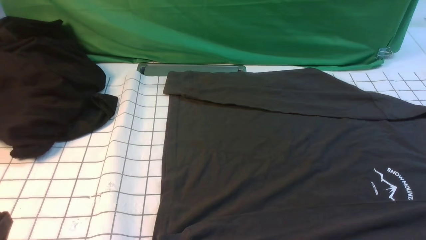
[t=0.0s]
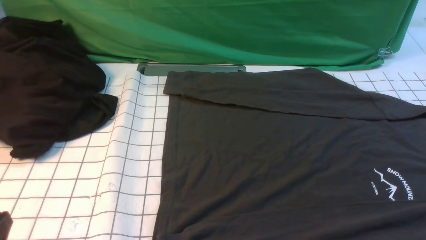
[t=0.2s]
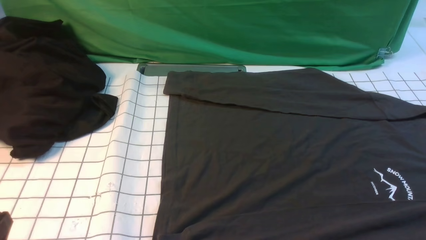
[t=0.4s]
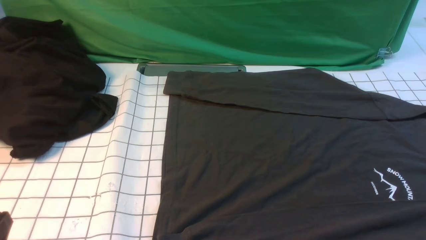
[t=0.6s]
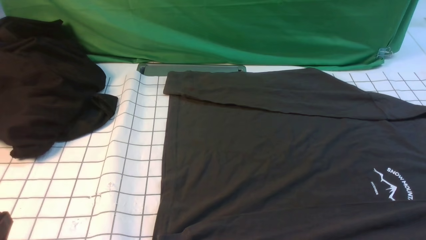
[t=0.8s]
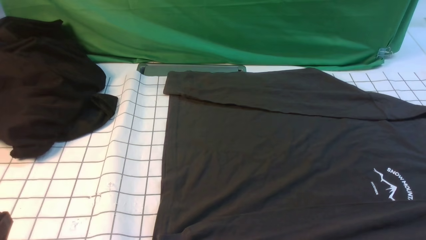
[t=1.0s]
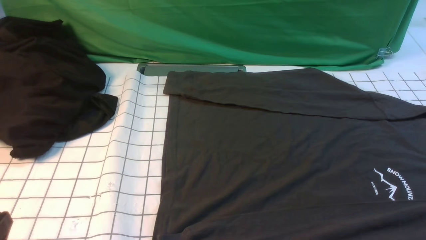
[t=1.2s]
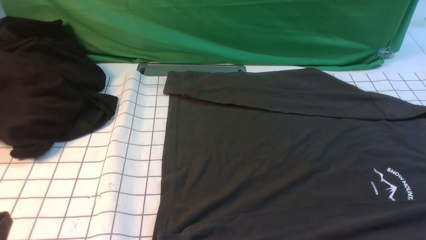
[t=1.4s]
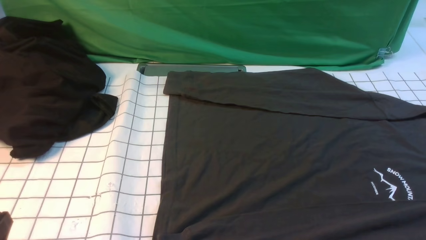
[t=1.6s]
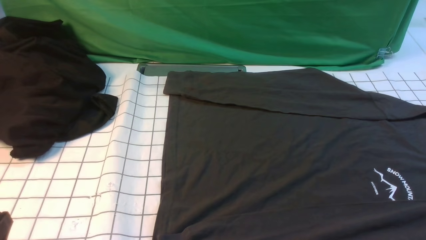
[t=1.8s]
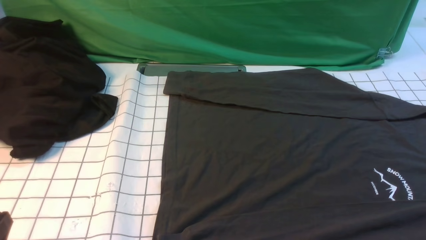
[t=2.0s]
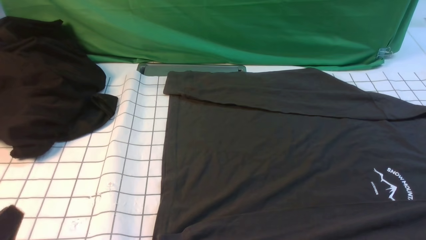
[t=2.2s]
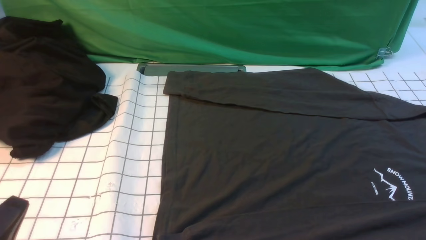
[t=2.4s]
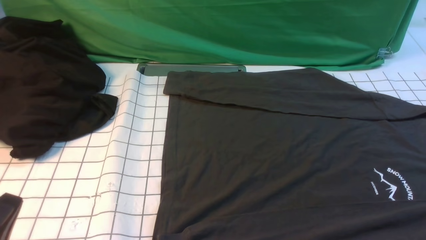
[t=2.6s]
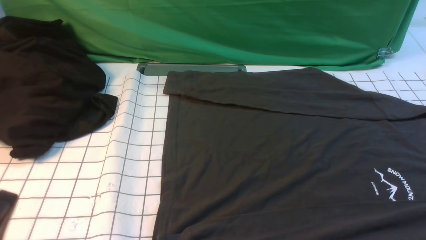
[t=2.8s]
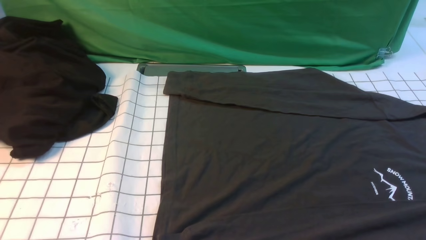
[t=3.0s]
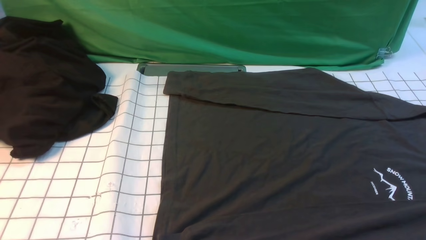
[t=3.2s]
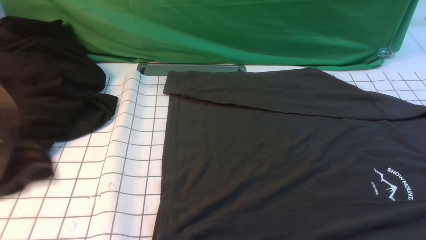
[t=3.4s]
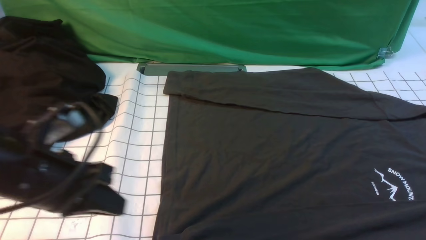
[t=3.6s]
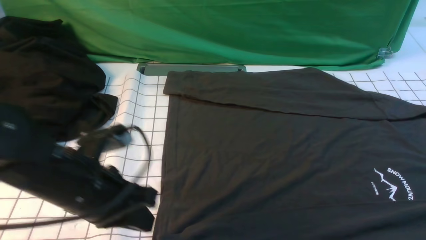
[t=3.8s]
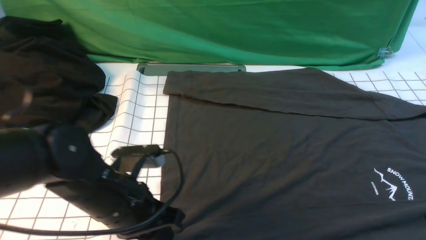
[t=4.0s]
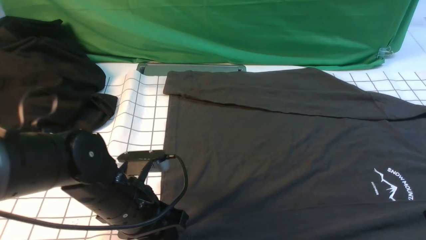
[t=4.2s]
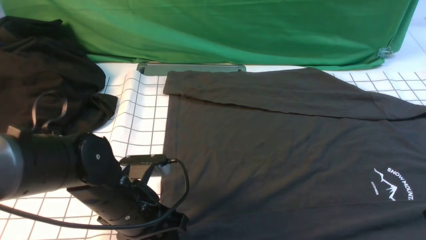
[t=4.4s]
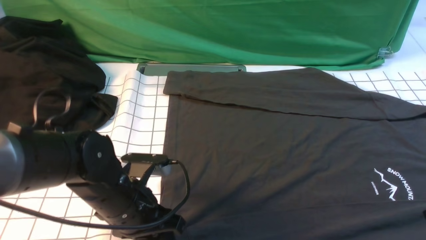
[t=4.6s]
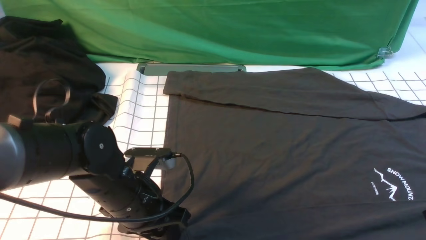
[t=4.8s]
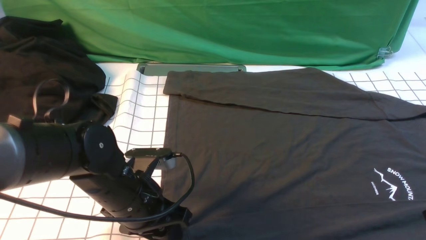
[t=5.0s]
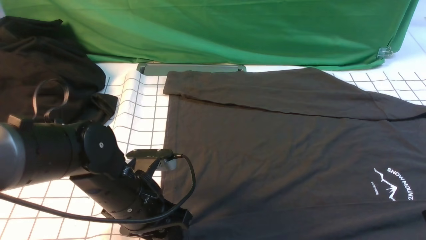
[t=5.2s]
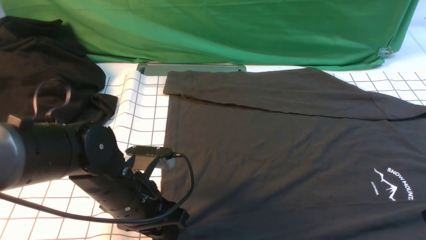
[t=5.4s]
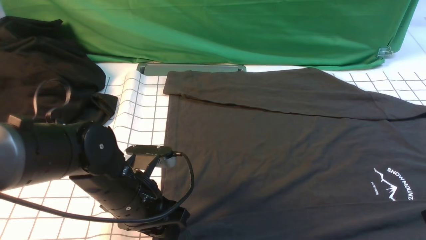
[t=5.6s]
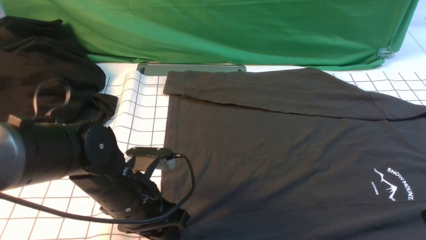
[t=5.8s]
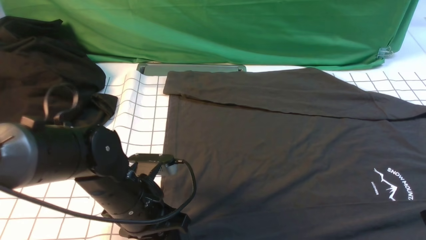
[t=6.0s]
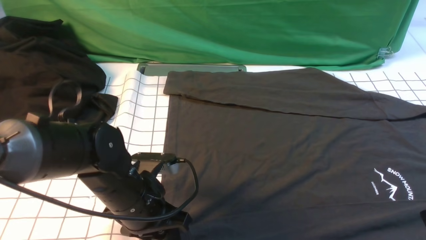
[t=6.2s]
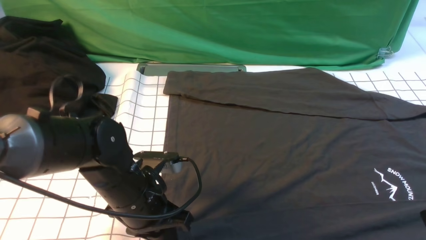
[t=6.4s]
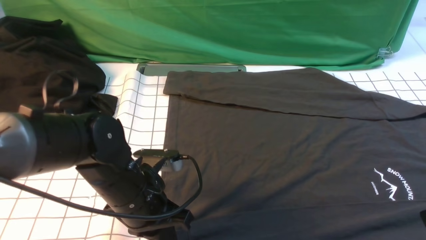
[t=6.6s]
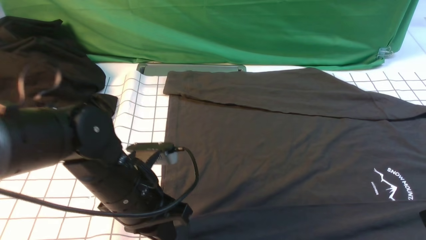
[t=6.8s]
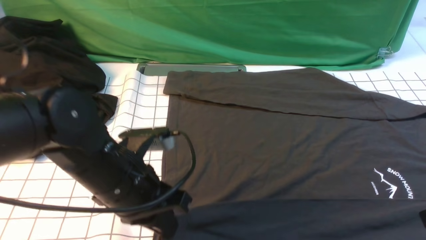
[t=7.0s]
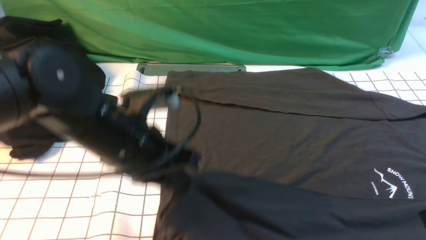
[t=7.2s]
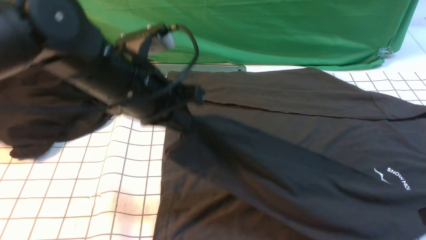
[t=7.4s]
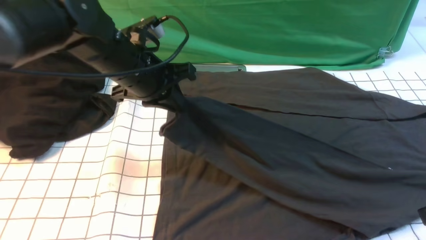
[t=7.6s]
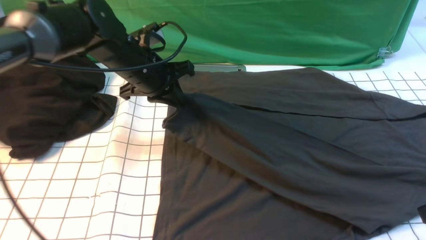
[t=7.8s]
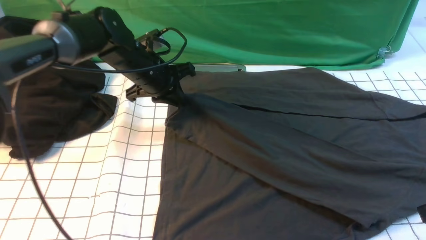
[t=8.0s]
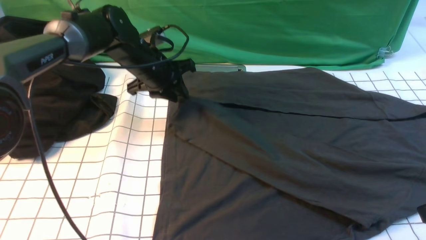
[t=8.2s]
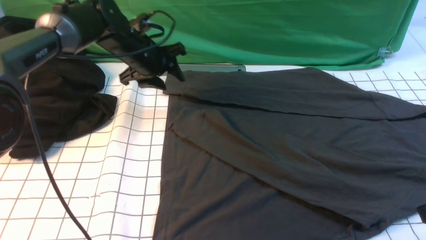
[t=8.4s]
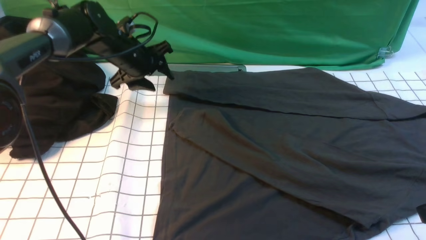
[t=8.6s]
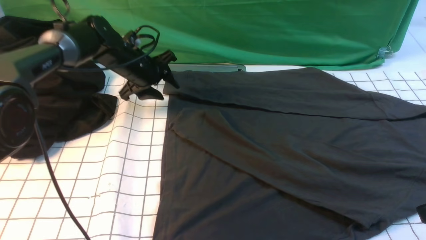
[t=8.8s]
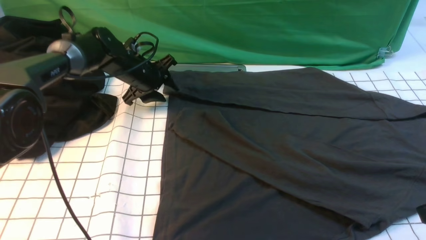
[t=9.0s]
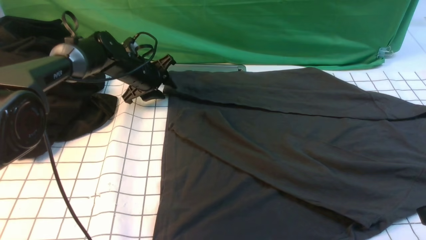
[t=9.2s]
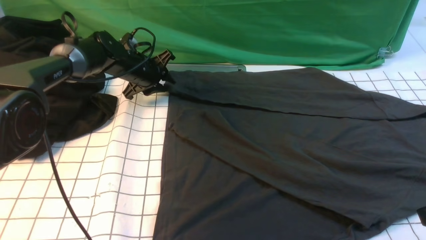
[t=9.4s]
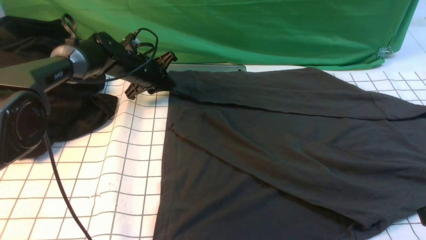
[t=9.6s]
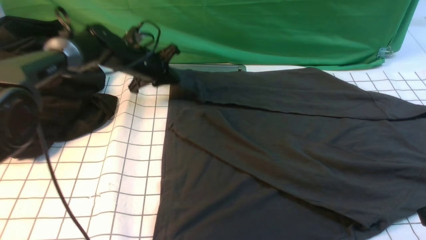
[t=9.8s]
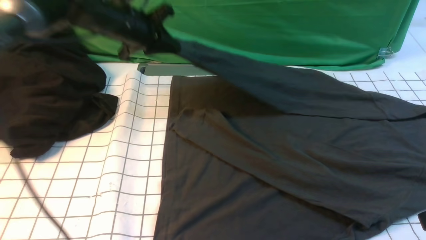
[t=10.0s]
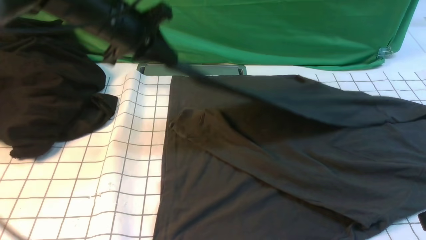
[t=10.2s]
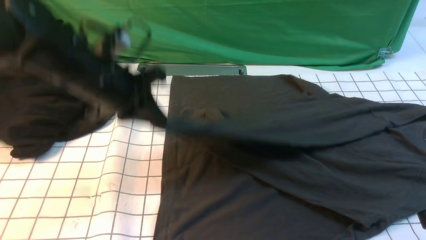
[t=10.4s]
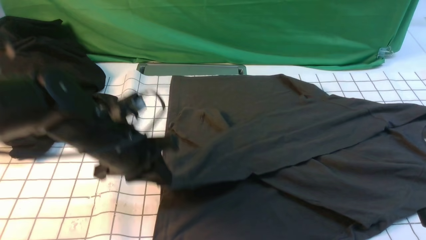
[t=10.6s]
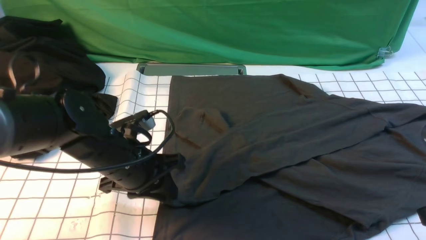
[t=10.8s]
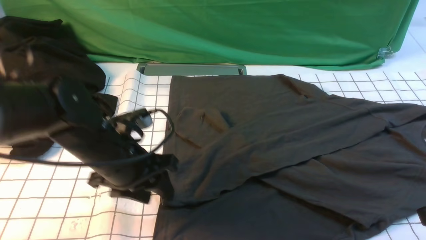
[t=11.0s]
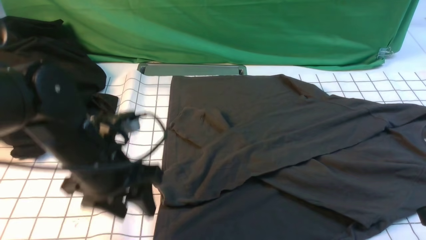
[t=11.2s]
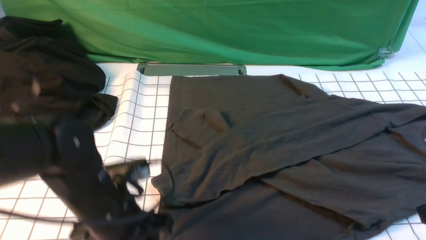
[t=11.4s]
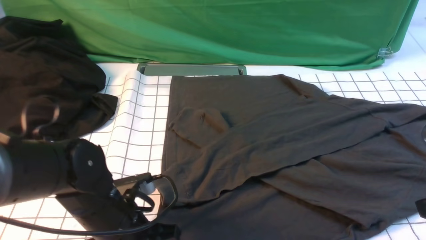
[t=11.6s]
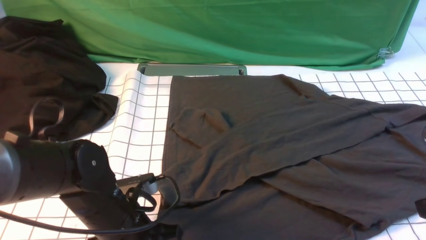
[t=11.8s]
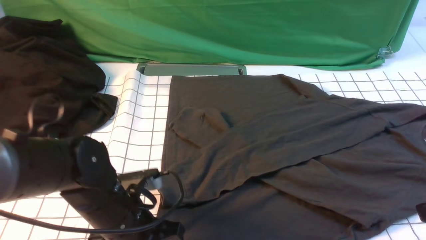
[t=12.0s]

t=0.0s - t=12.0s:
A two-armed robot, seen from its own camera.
Step, t=0.0s - t=6.4s: use the left arm to clamp the cuff closest to it.
Step, t=6.8s - t=8.2s: use the left arm to drag and place the cuff at the centered position on the left edge of the fabric.
Step, t=8.4s - t=9.6s: use the left arm to clamp the cuff farthest from it.
Step, t=9.8s - t=10.8s: use the left arm to drag and drop the cuff onto the cuff closest to the left arm.
t=0.0s - t=1.6s: The two grippers keep their place.
t=3.0s - t=4.4s: The left gripper moves forward, to the right and downward, some 25 cm, and opens its fingers, while the right gripper moves forward, roughly 10 cm.
t=4.4s - t=6.0s: Both grippers stay about where they are.
t=6.0s - t=7.6s: The left gripper moves forward and upward, about 20 cm, and closes up.
t=7.6s - t=9.0s: The left gripper moves forward and downward, roughly 20 cm, and opens up.
t=9.0s - t=10.4s: The left gripper moves backward and upward, approximately 20 cm, and closes its fingers.
t=10.4s - t=12.0s: The left gripper is displaced backward and downward by roughly 15 cm, and opens and closes again.

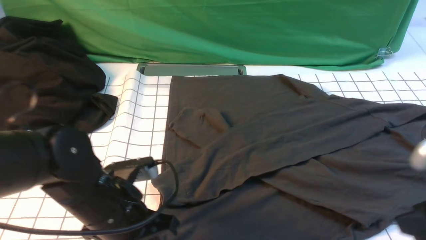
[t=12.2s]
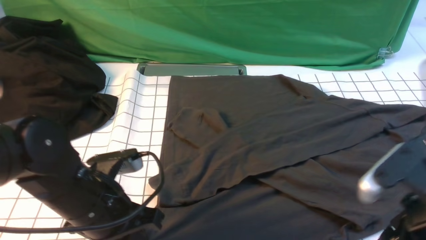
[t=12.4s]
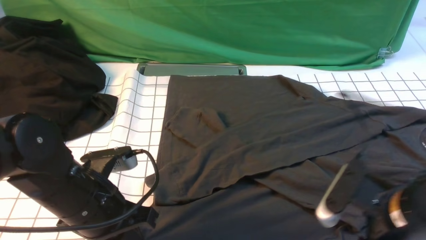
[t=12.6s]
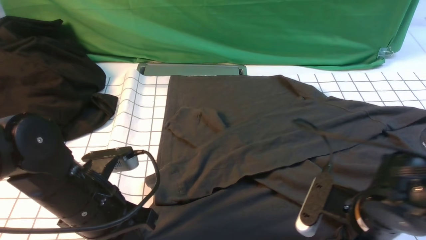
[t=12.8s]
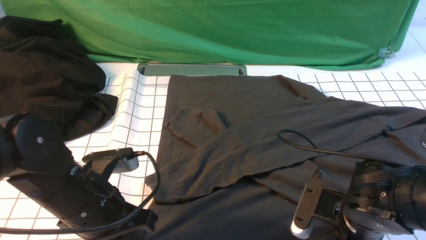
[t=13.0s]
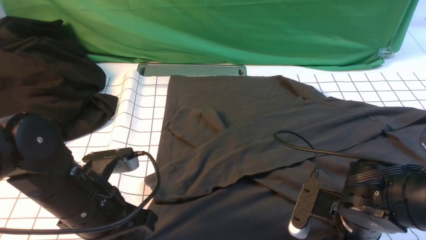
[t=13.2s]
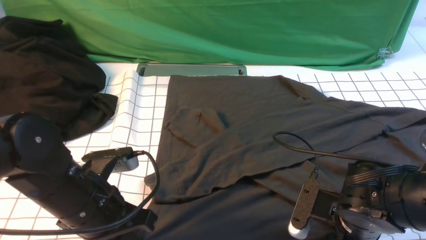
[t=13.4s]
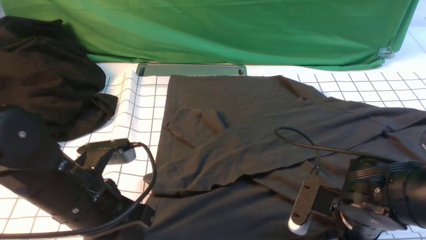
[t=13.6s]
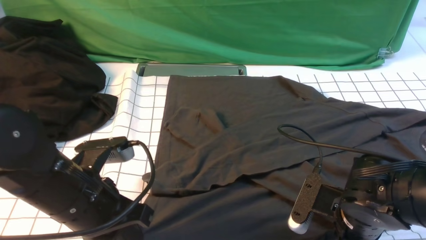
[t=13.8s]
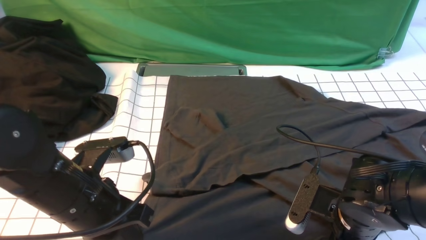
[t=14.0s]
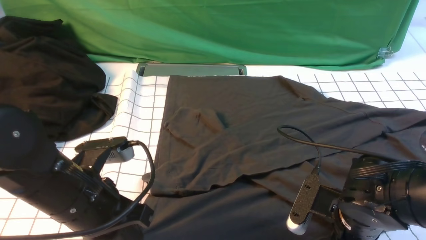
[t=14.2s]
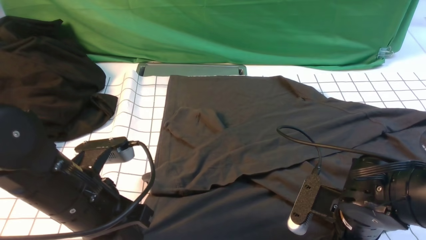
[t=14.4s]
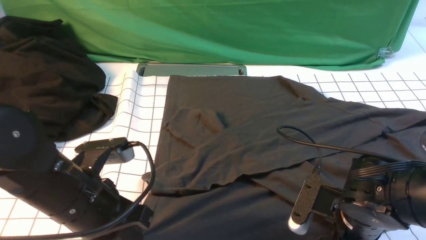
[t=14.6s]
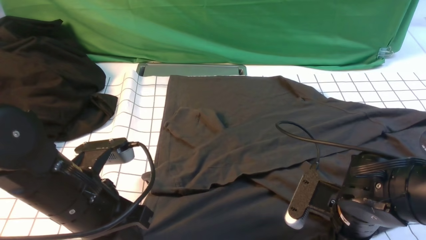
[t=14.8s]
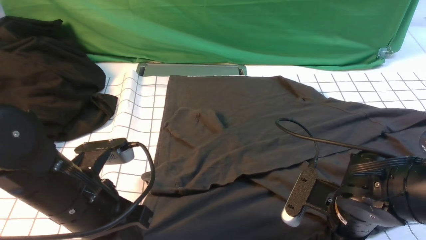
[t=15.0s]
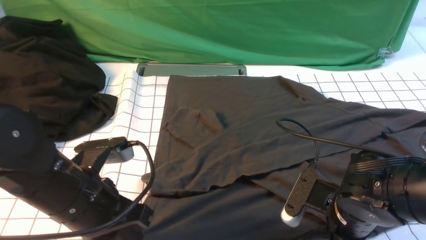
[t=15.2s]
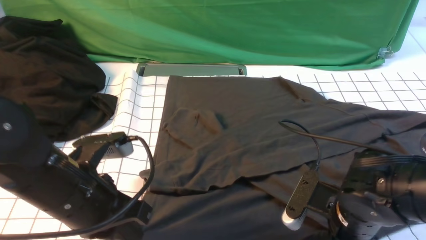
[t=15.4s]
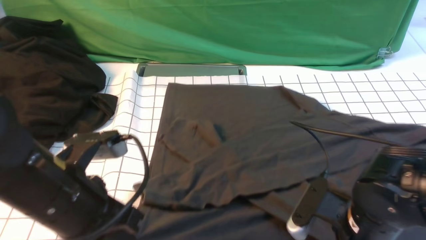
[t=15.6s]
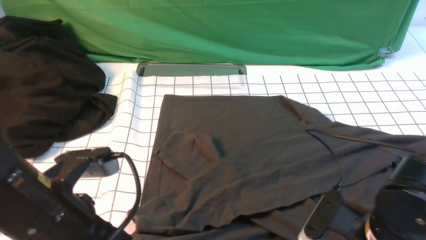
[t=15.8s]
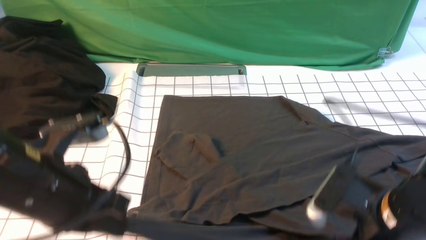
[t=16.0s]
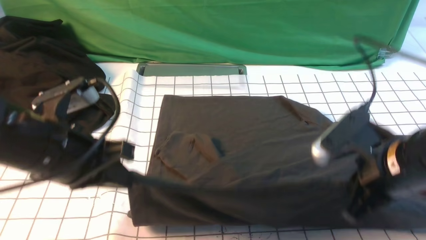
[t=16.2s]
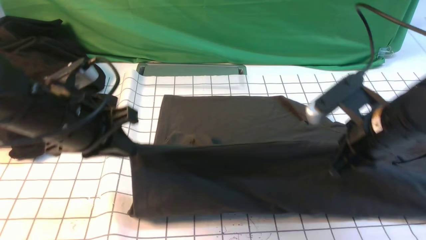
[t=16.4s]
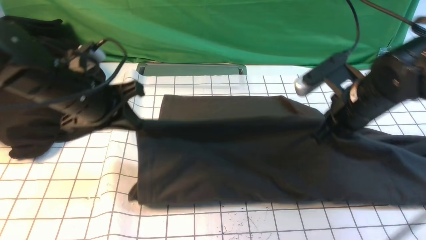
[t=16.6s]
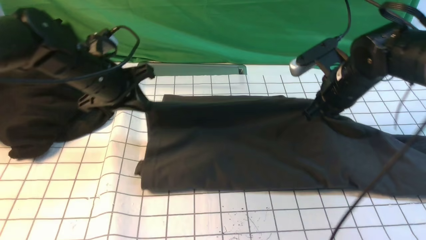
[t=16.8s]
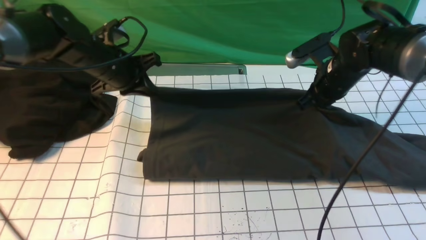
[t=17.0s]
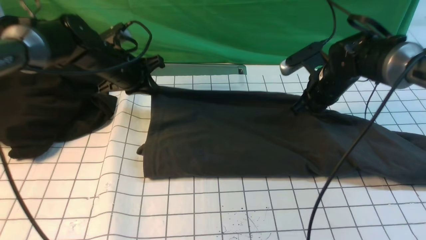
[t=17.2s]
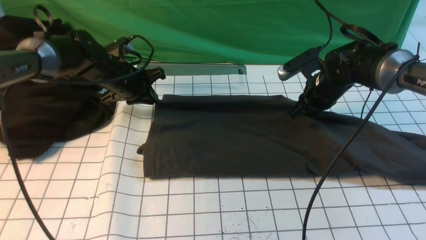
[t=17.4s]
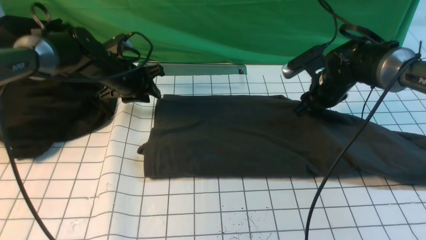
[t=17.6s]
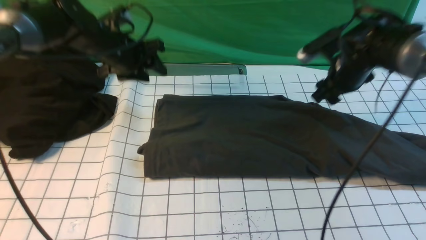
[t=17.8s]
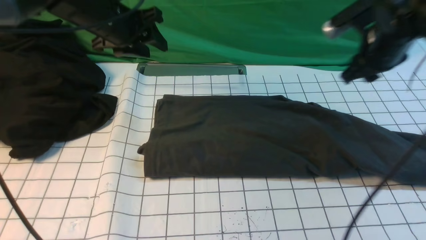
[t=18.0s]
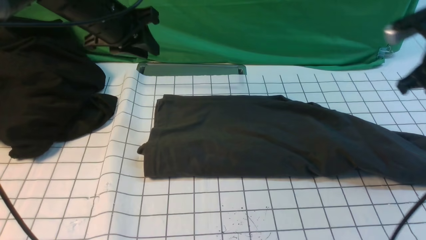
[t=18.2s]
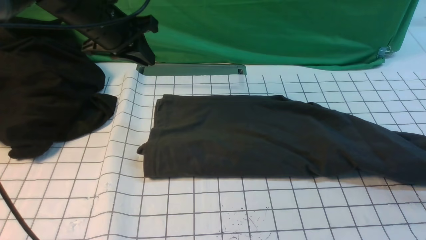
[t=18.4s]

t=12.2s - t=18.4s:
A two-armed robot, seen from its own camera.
Step, t=12.2s - t=13.6s: use both arms simultaneously to clamp the lower edge of the clothing fabric.
Step, t=13.8s - t=17.6s: use both arms to drag the lower edge of the fabric forward and fold it over the upper edge.
t=12.2s - t=13.8s: The right gripper heads downward, to the left and forward, covering roughly 15 cm, while the left gripper moves approximately 5 cm.
t=13.8s - t=15.4s: There are only small adjustments of the grippers.
t=15.4s - t=16.8s: The two grippers go roughly 20 cm forward.
t=16.8s - t=18.4s: The left gripper is displaced upward by some 5 cm, and opens, then closes again, while the right gripper shifts approximately 20 cm to the right, and opens and closes again.
